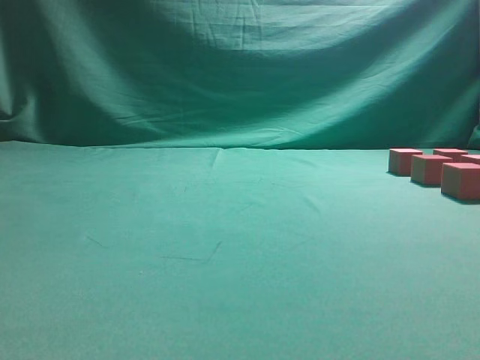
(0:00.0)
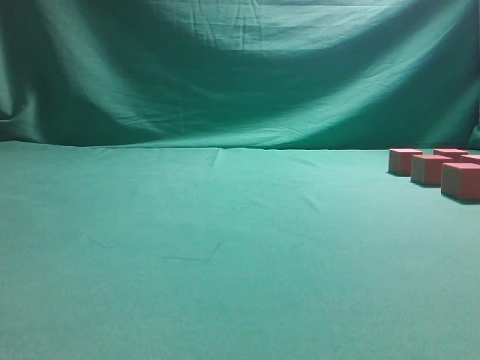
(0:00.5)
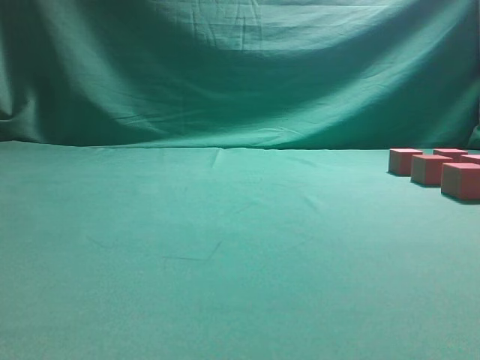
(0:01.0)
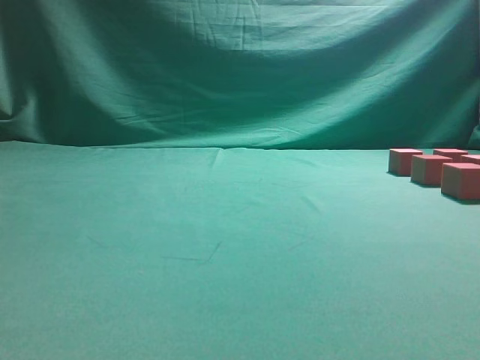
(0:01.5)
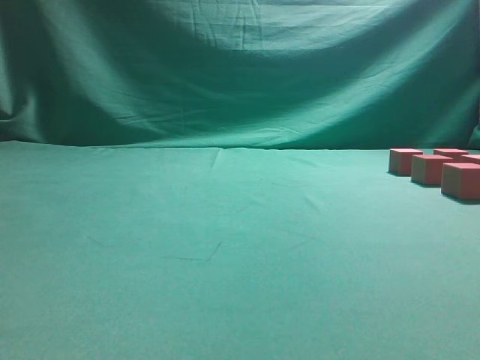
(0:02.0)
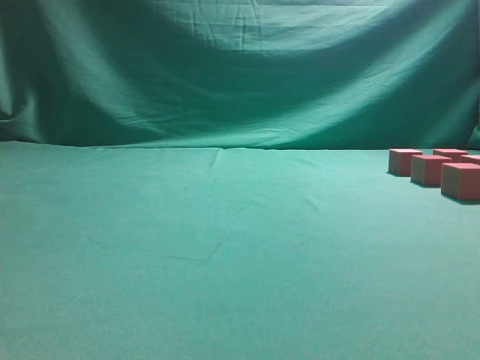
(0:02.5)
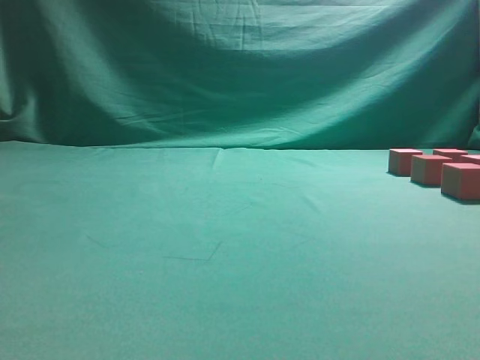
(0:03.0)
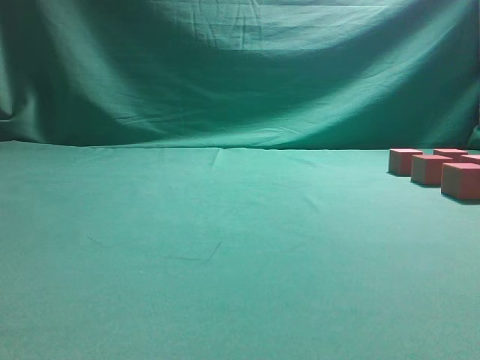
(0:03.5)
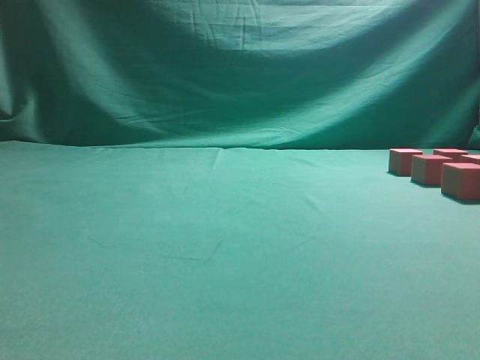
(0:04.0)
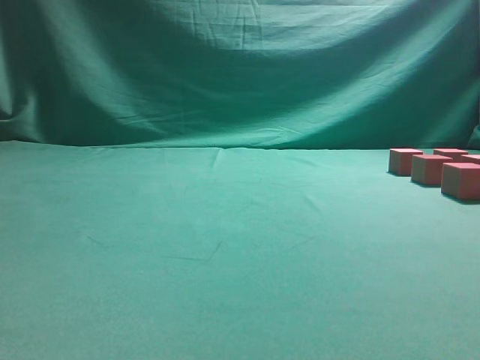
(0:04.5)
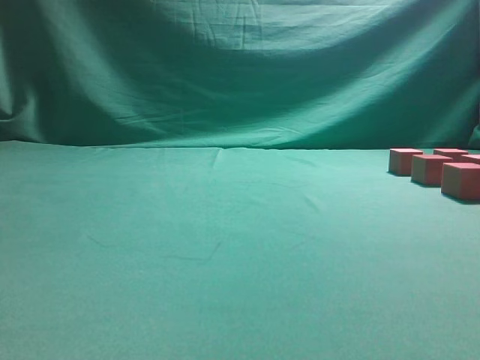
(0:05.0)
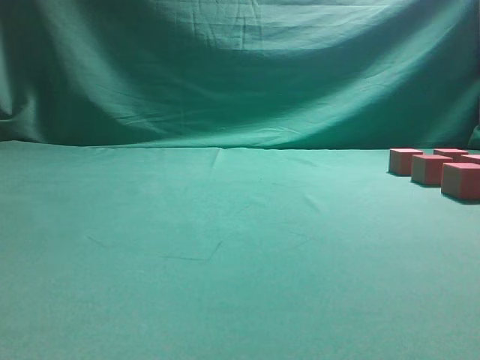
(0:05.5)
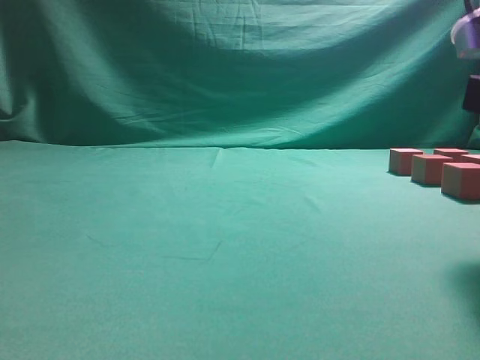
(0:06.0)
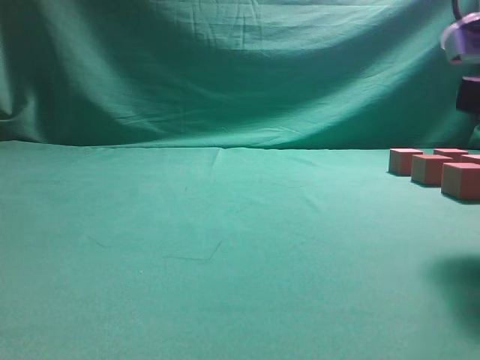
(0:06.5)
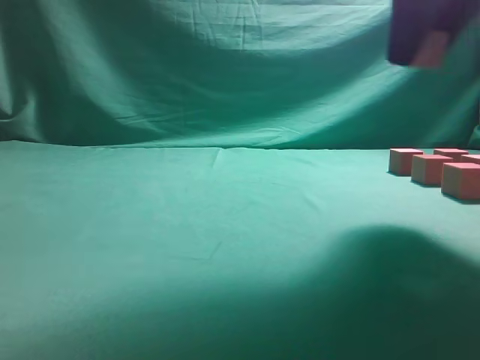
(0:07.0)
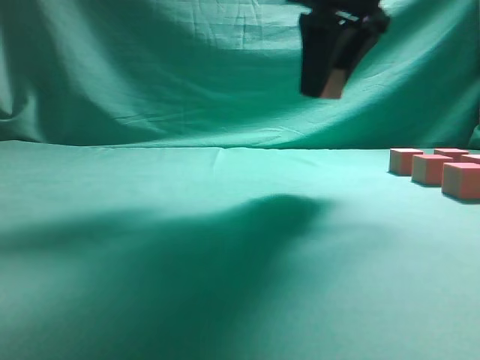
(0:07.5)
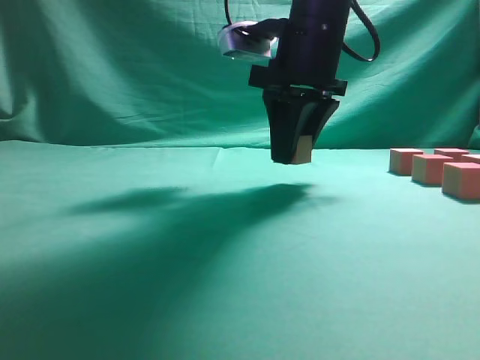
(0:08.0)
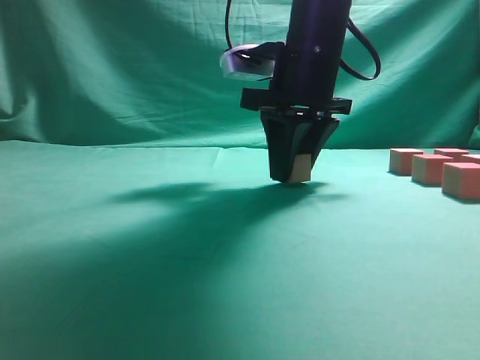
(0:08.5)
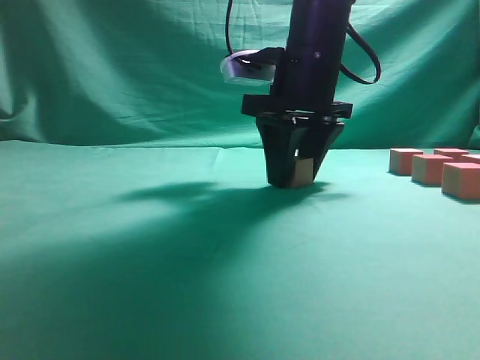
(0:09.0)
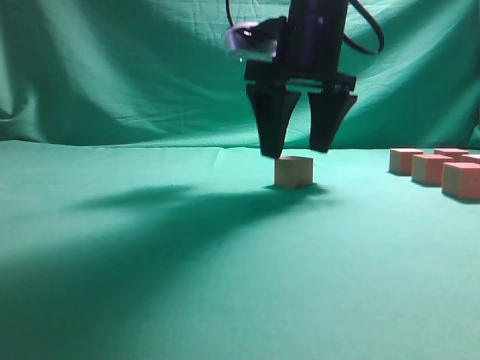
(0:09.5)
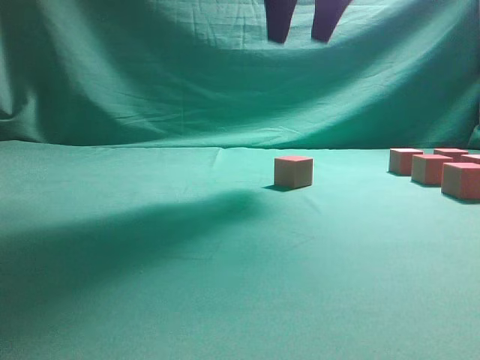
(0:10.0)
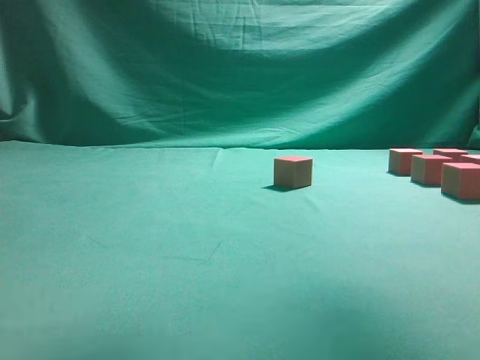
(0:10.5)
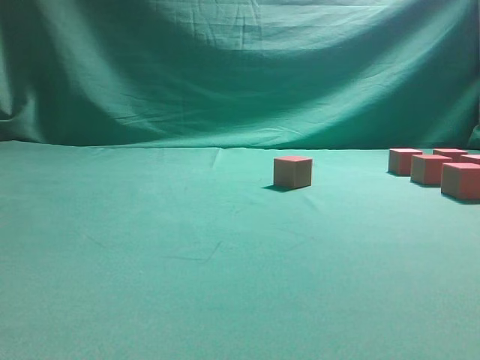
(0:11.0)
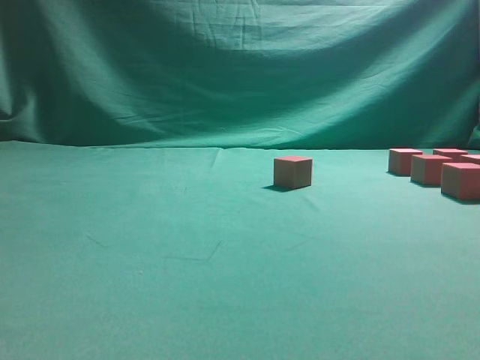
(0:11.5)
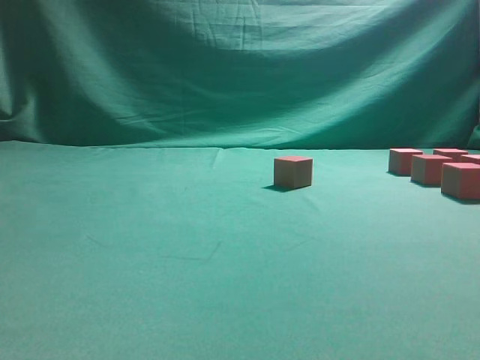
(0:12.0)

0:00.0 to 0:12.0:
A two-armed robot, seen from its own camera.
Task of the whole recording: pick up the multiple cubes in two columns one by one and place them in another position on the table.
Step, 0:00.0 to 0:06.5: Pick up the block on the table.
Step, 0:07.0 to 0:09.5: Place the block at the correct position to assemble the letter S.
0:04.0 to 0:06.0: The right gripper goes roughly 15 cm downward, forward and to the left, and opens up.
0:06.0 to 0:08.0: The right gripper travels forward and to the left by approximately 25 cm, and closes up.
0:08.0 to 0:10.0: The right gripper heads upward, covering roughly 10 cm, and opens up.
0:10.0 to 0:12.0: The right gripper heads to the right, backward and downward, covering approximately 30 cm.

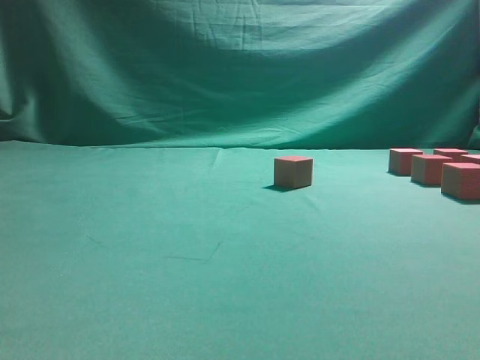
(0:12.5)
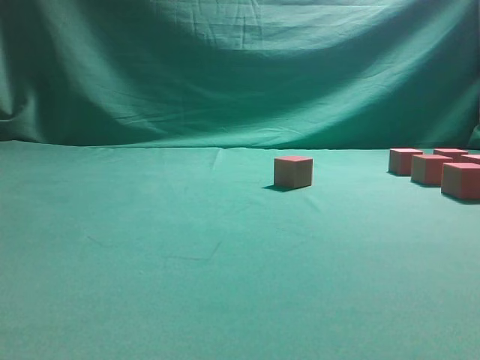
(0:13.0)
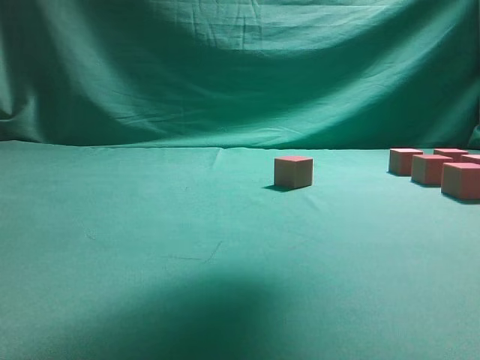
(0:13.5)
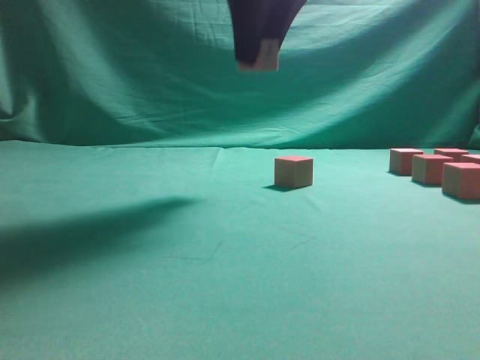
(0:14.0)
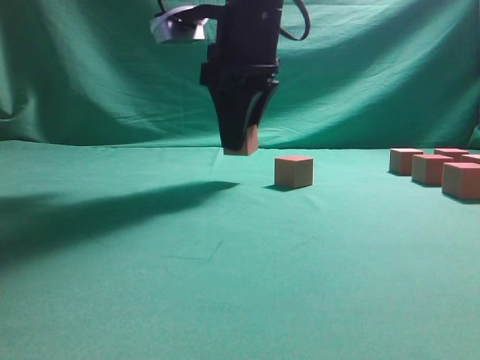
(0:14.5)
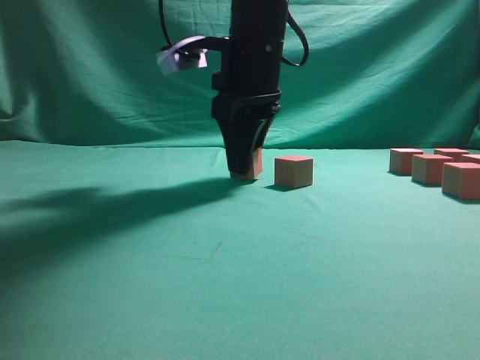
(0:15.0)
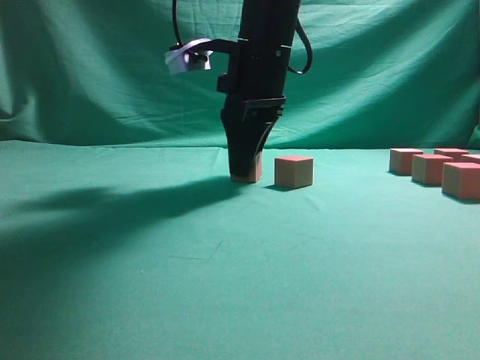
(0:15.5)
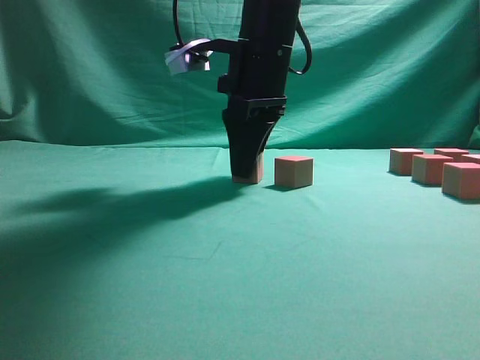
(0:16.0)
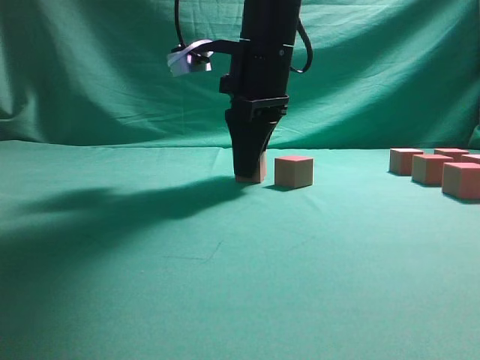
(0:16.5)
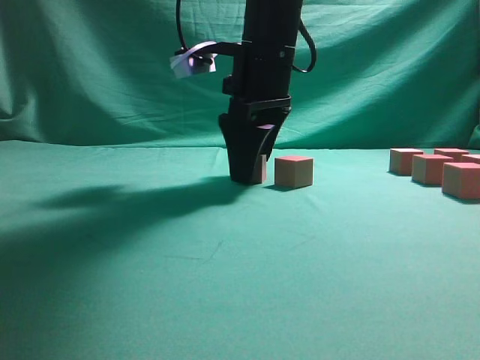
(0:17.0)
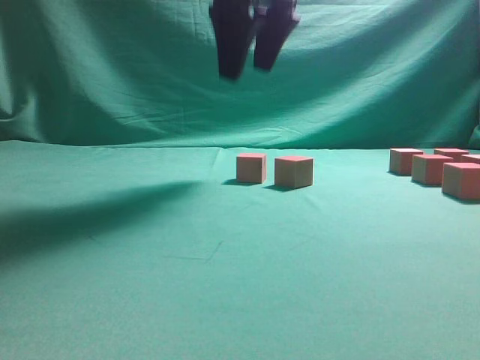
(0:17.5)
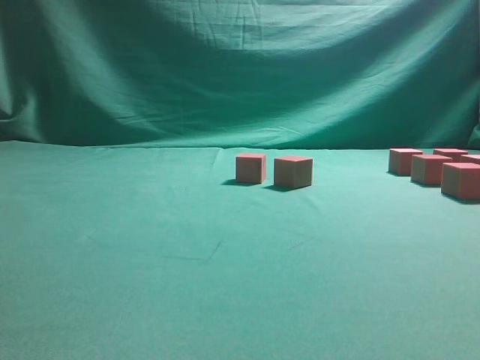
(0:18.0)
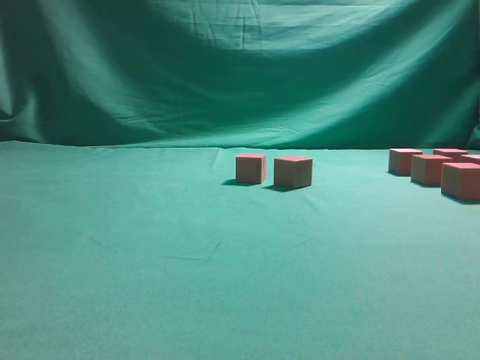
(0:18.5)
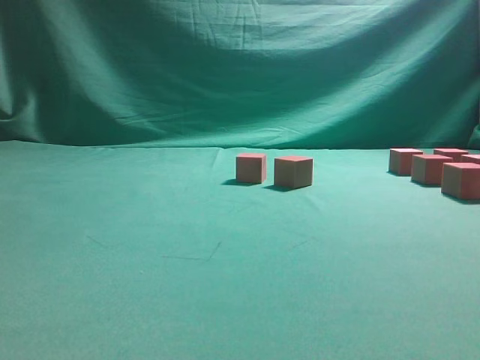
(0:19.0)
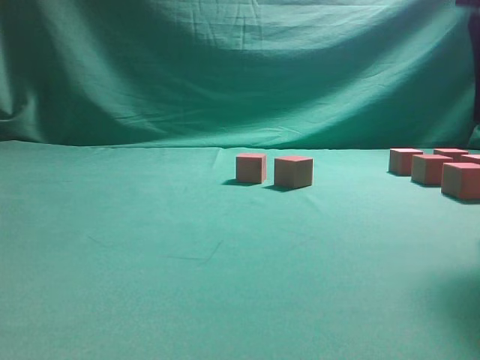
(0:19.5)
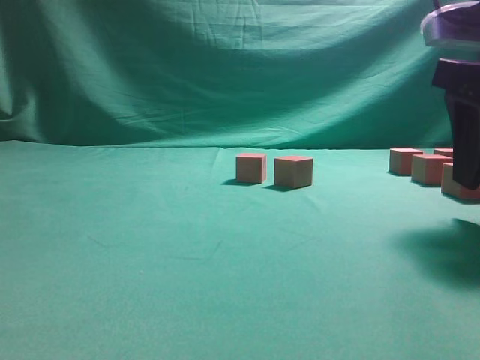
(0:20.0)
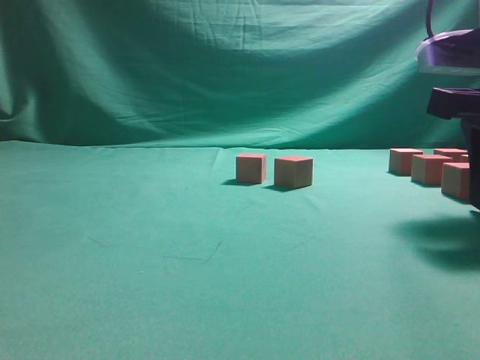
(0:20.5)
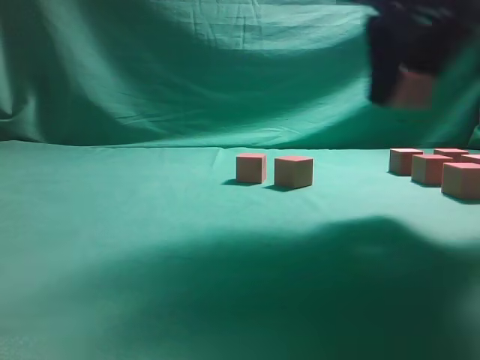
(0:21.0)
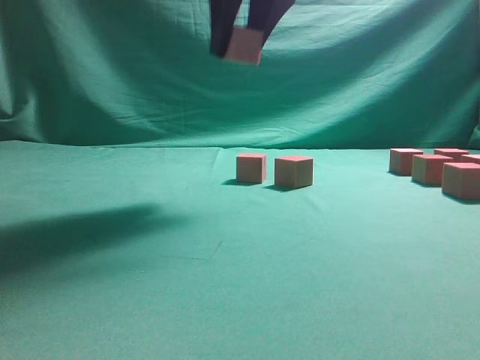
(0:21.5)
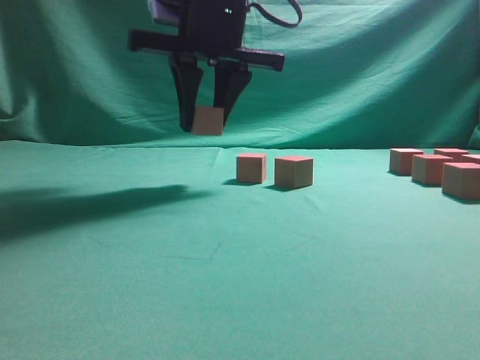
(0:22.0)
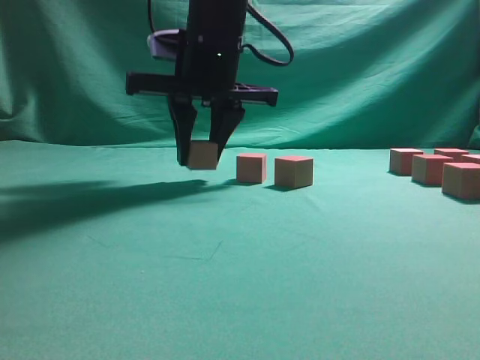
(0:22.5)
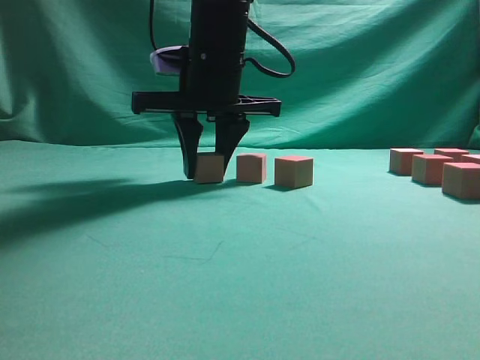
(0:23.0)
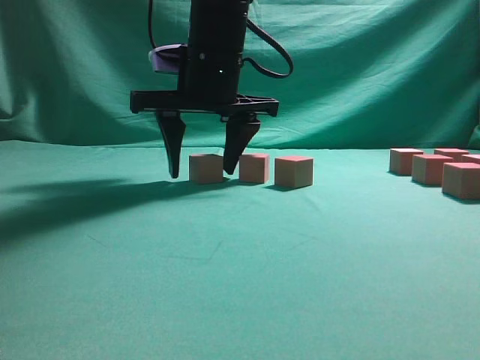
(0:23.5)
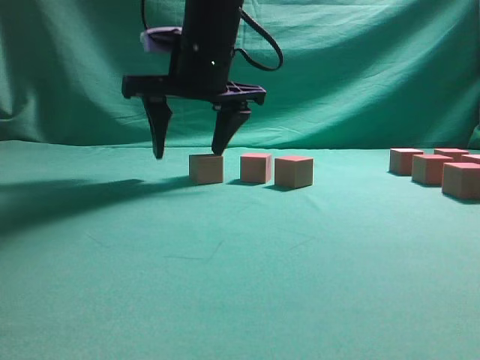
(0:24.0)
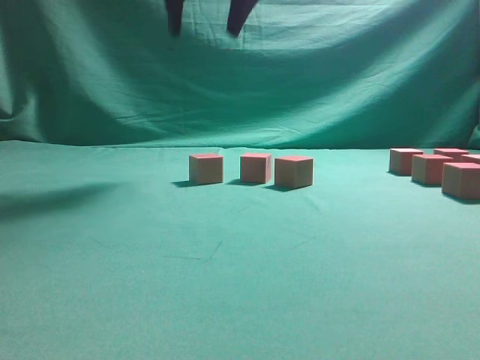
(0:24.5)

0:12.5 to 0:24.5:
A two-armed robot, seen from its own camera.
Task of the whole recording: pick up the multiple cubes in two columns one by one and place them in another position on the table.
Step, 0:13.5 to 0:17.5: Place the block at the correct position to assemble the letter S.
Step, 0:18.0 to 0:20.5: Pick up the block on the table.
Step, 0:21.0 to 0:24.0: Place the block at the correct position to assemble the letter S.
0:12.5 to 0:14.5: The right gripper goes roughly 30 cm to the left and forward.
0:14.5 to 0:16.5: The grippers stay close to where they were, moving slightly.
0:16.5 to 0:18.5: The right gripper heads upward, backward and to the right, covering roughly 30 cm, and opens up.
0:18.5 to 0:20.5: The right gripper shifts approximately 25 cm downward, and closes up.
0:20.5 to 0:22.5: The right gripper moves to the left and forward, some 25 cm.
0:22.5 to 0:24.5: The right gripper shifts roughly 15 cm upward, and opens its fingers.

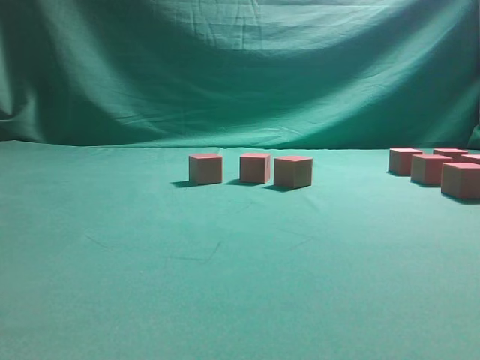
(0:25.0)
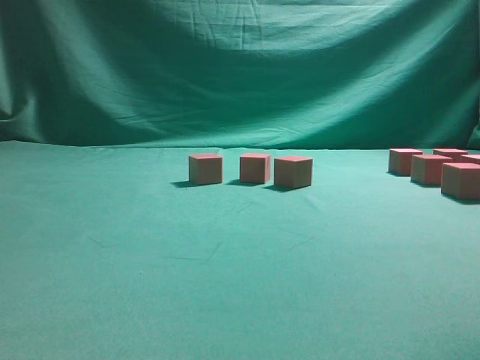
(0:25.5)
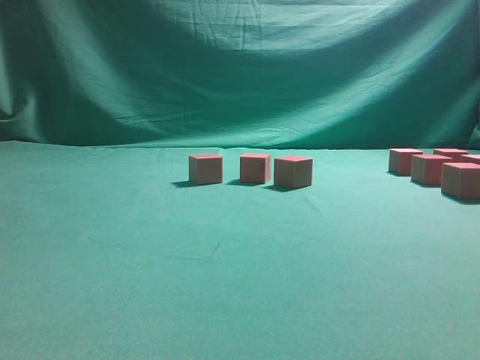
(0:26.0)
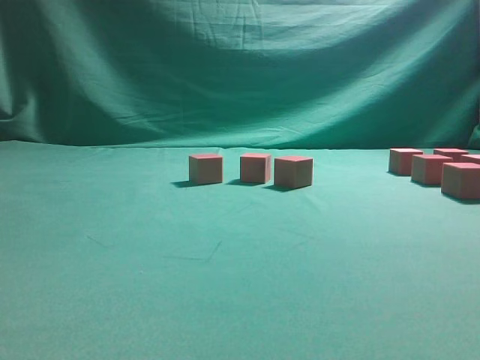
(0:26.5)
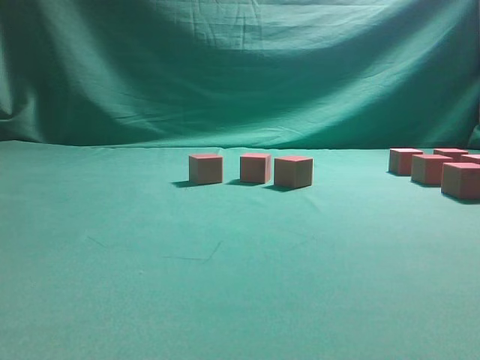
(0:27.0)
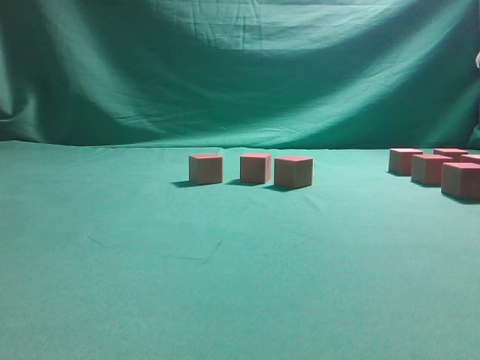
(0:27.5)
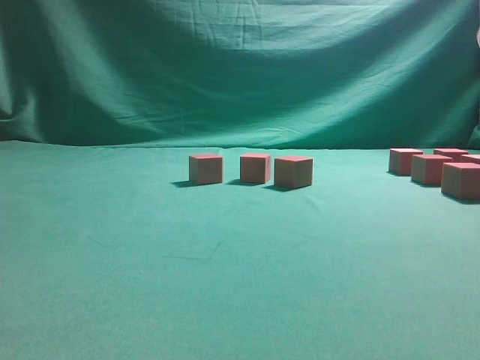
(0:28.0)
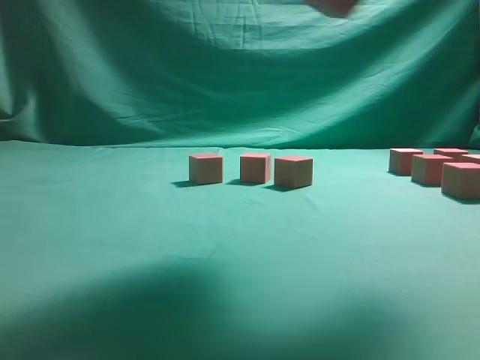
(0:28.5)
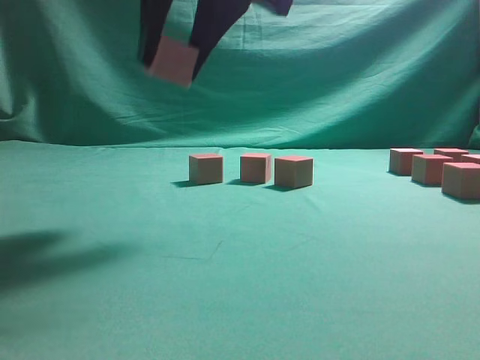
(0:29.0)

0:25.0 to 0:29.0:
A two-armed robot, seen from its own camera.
Task of the whole recording: pick up the multiple cubes in two columns one by one and place them in another position on the table.
0:27.0 to 0:29.0: The right gripper moves to the left, approximately 30 cm, and closes up.
